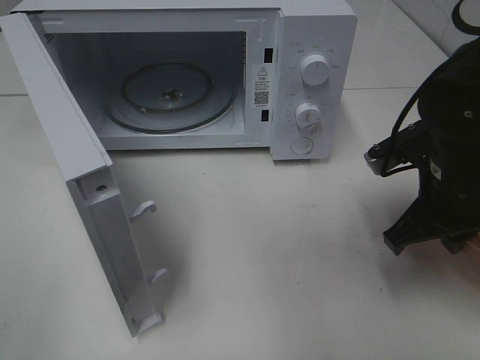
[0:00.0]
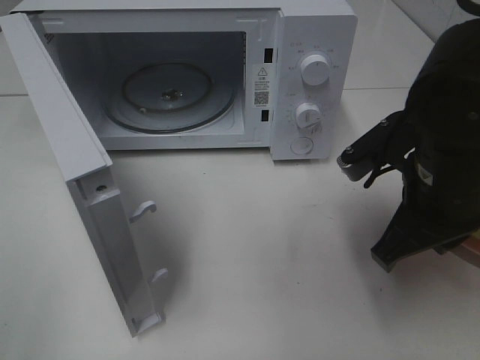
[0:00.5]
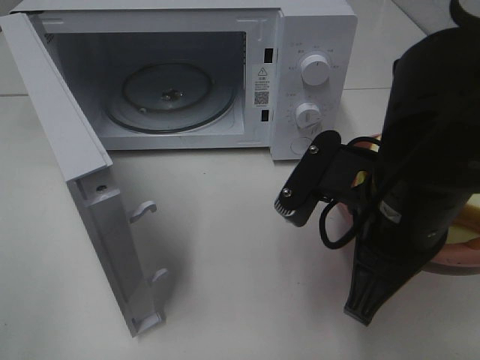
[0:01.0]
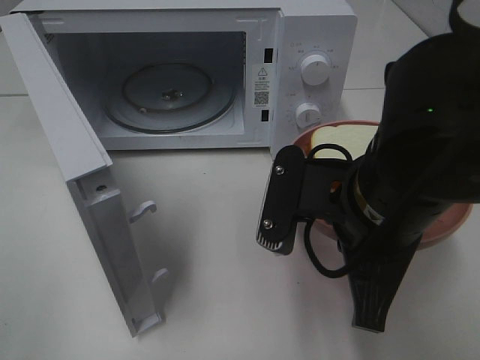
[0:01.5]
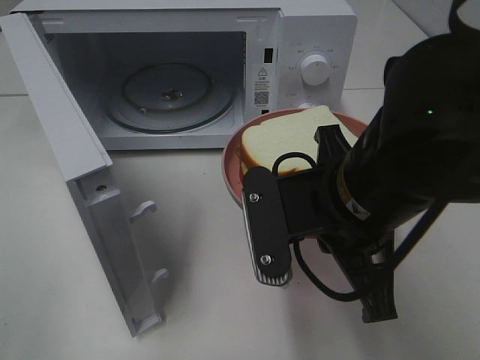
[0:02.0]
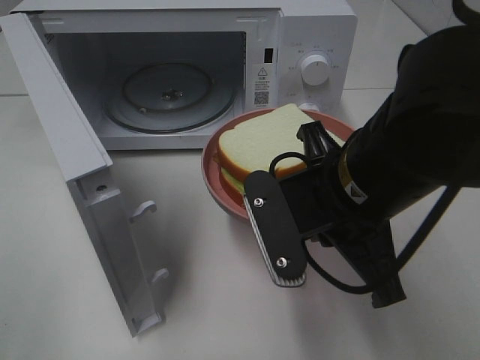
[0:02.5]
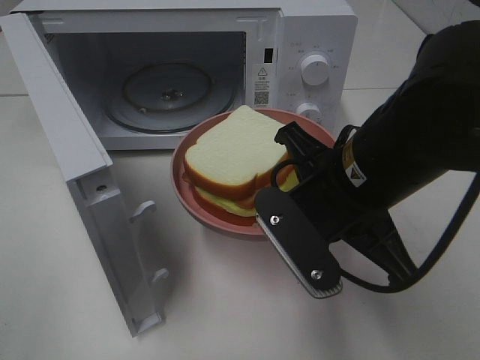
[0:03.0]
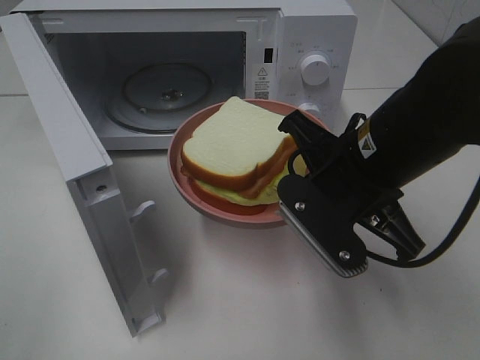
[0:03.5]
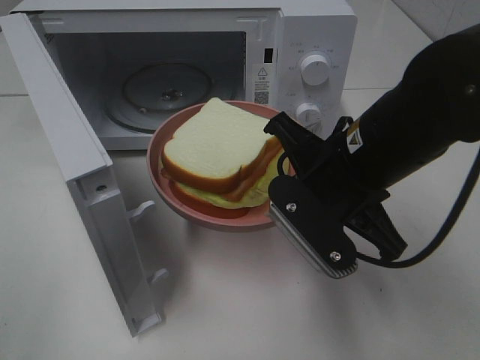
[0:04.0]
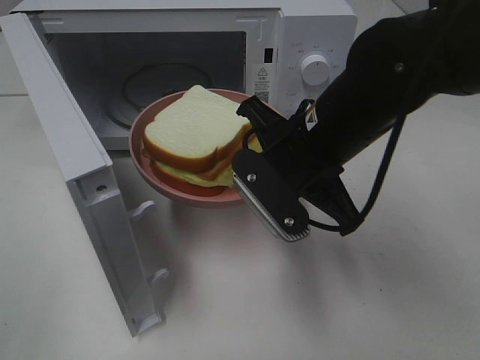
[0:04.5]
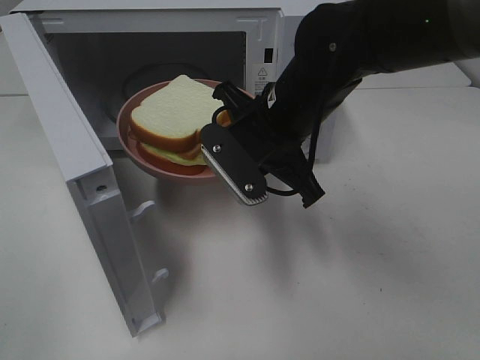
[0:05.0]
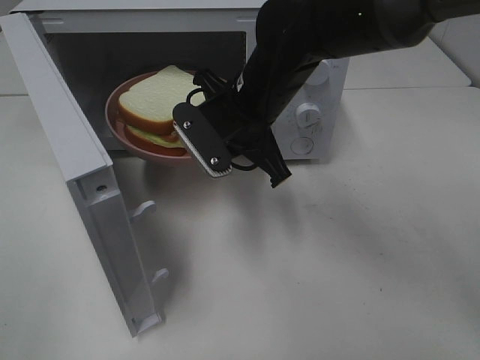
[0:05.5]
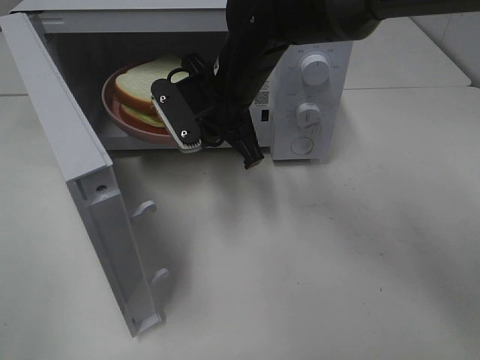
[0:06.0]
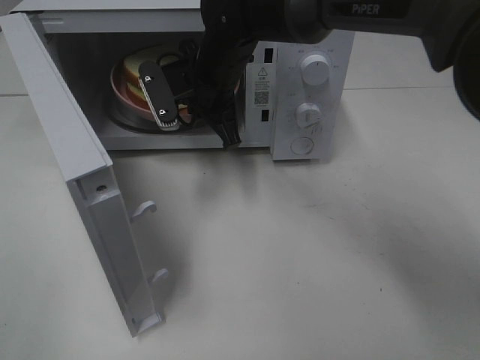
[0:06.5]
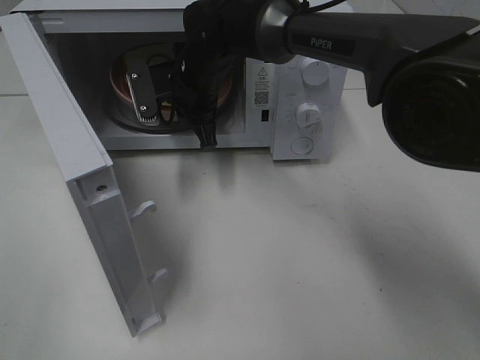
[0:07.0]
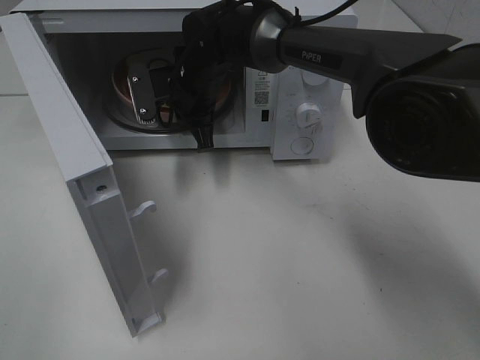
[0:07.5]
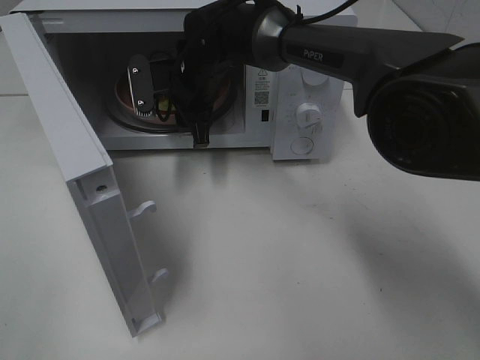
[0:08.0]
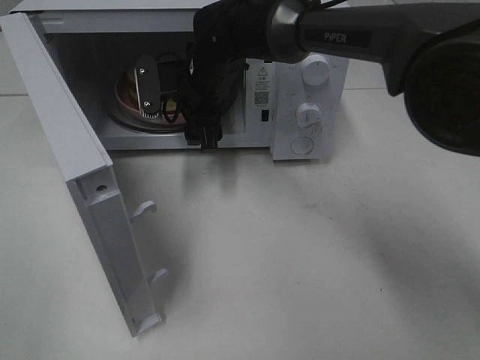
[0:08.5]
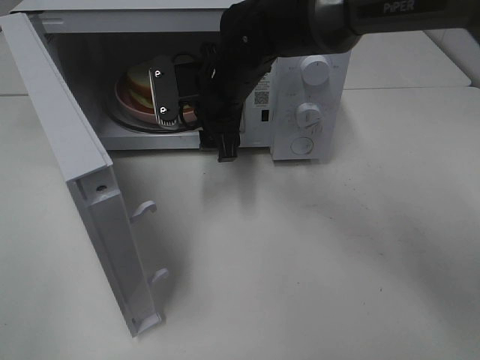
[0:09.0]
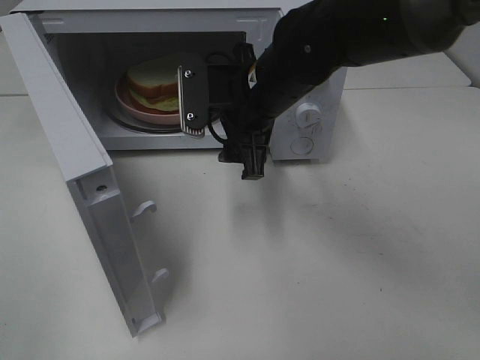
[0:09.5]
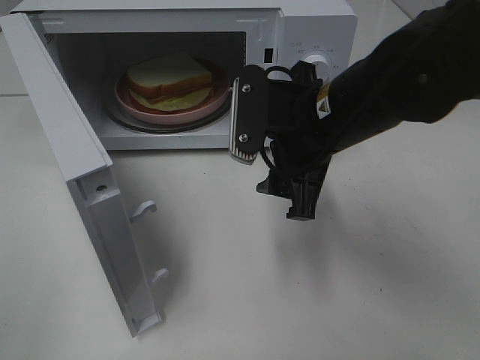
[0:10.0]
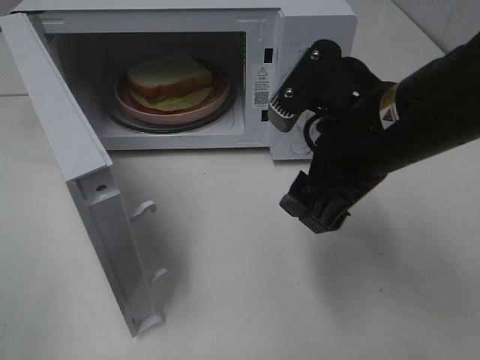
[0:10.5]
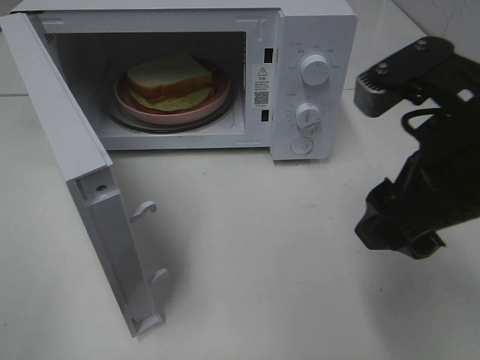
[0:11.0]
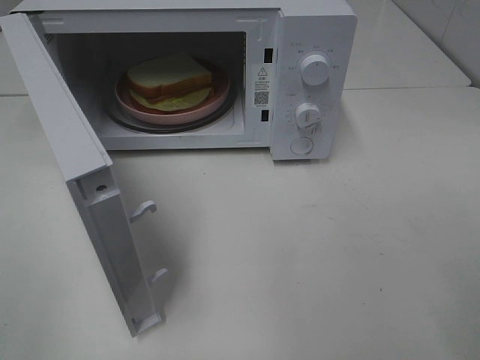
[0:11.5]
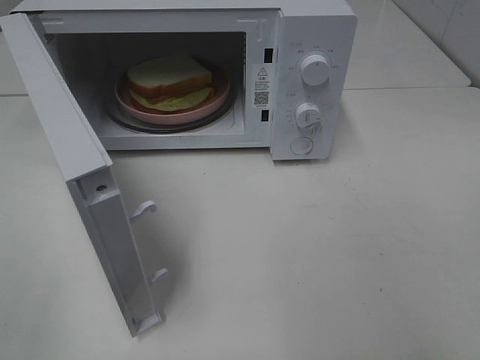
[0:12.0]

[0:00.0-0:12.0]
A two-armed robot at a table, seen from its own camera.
Task of the whole recording: Heat Sandwich.
Step, 0.0 to 8.5 s: Right hand: place the plate in the microwave.
0.0 to 2.0 s: The right gripper is displaced to the left and backward by approximately 15 cm.
2.0 to 4.0 s: The right gripper shifts roughly 5 cm forward.
4.0 to 6.0 s: The right gripper is displaced forward and to the left by some 20 cm.
6.0 to 8.0 s: The right gripper heads forward, covering approximately 10 cm, and opens up.
8.0 to 10.0 s: The right gripper goes roughly 25 cm backward and to the right.
10.0 to 12.0 s: The right gripper goes some 30 cm backward, to the right and upward.

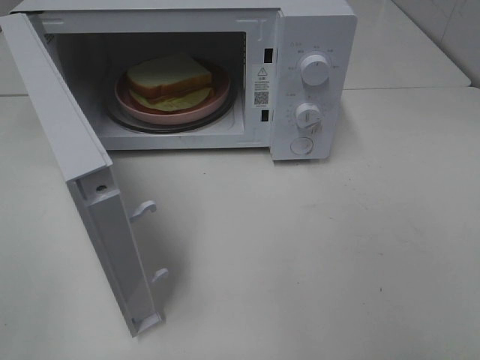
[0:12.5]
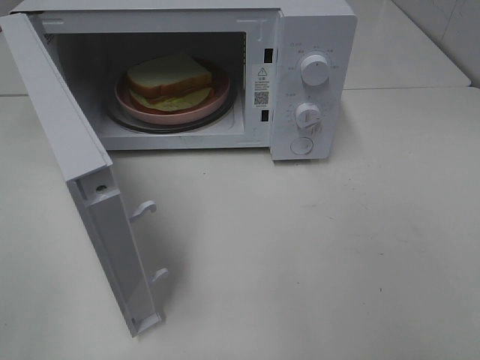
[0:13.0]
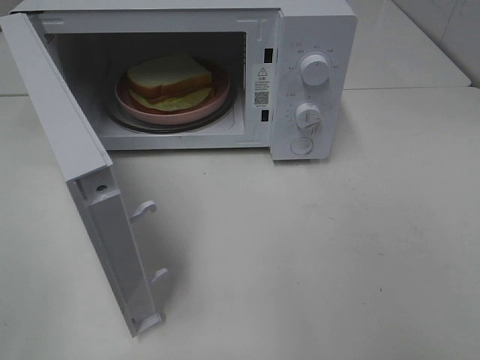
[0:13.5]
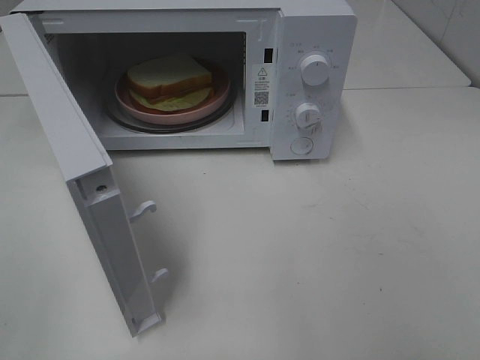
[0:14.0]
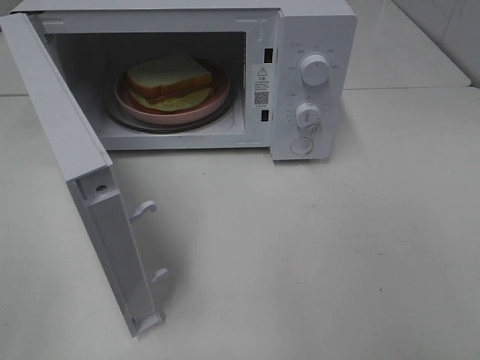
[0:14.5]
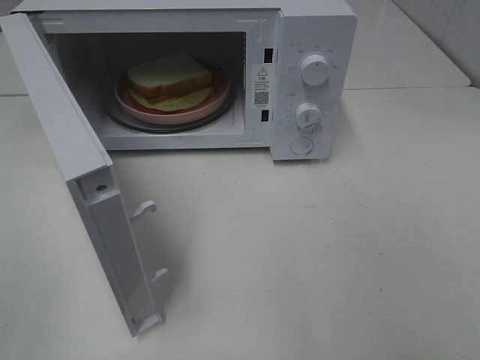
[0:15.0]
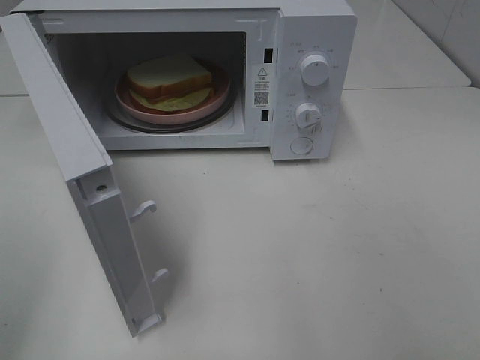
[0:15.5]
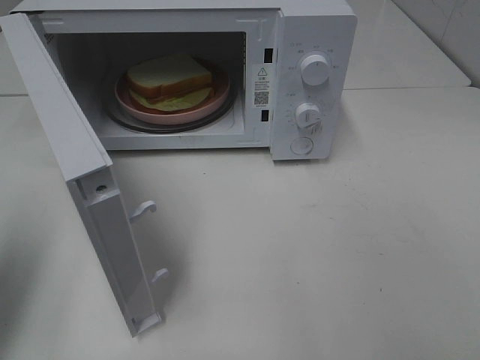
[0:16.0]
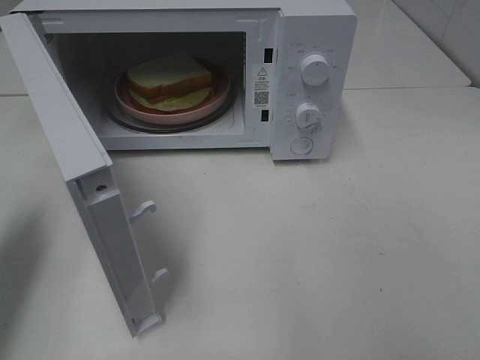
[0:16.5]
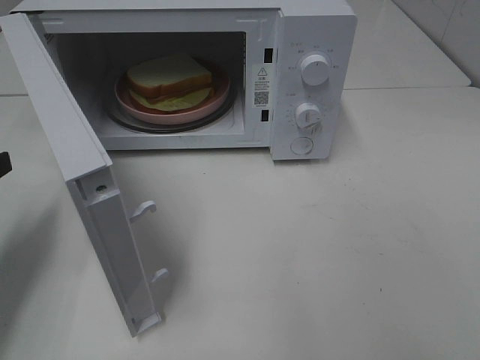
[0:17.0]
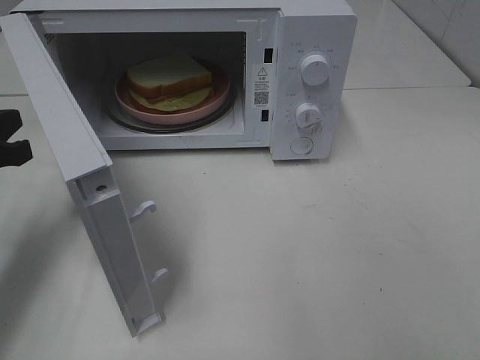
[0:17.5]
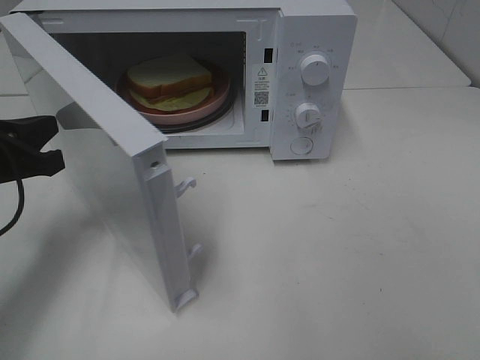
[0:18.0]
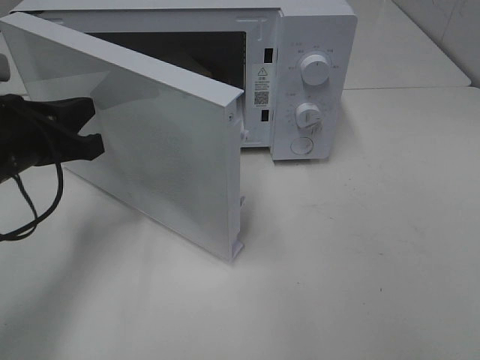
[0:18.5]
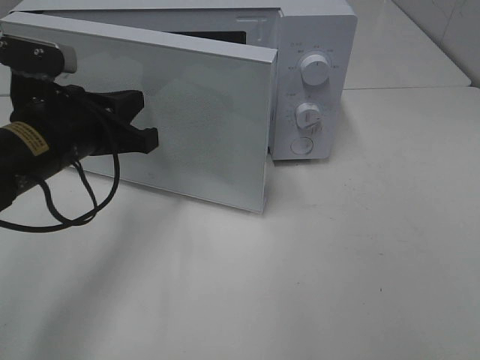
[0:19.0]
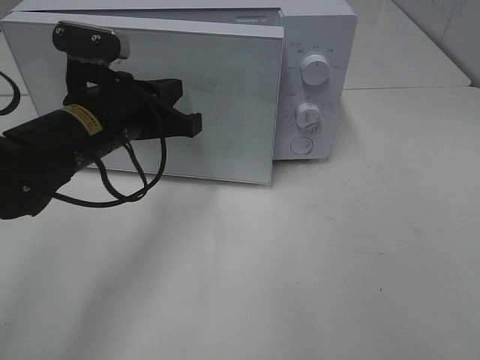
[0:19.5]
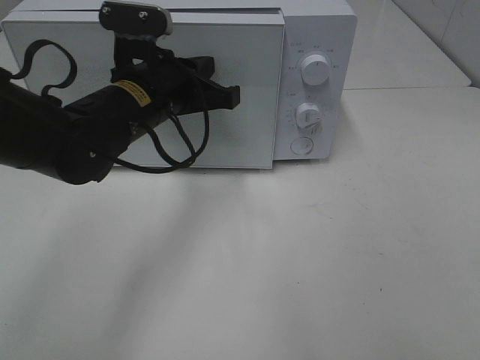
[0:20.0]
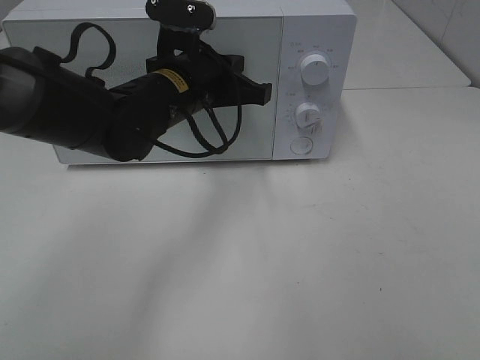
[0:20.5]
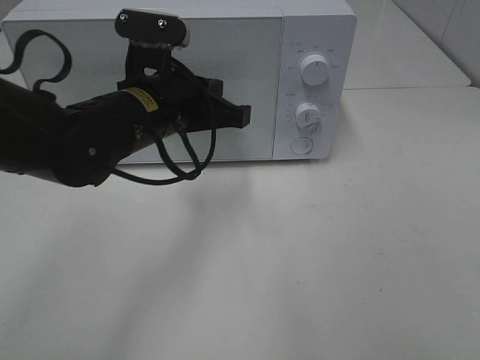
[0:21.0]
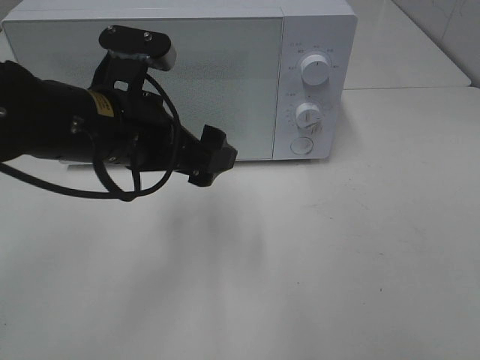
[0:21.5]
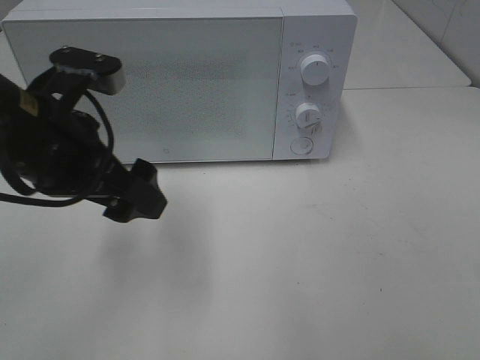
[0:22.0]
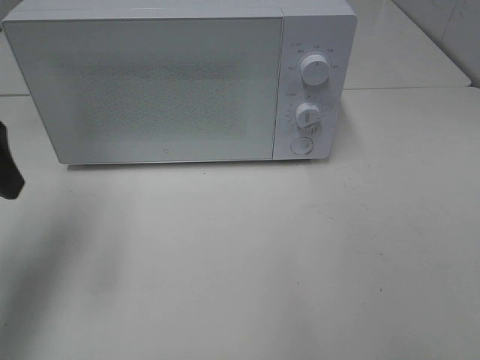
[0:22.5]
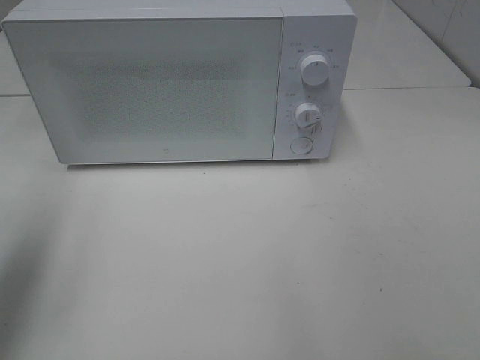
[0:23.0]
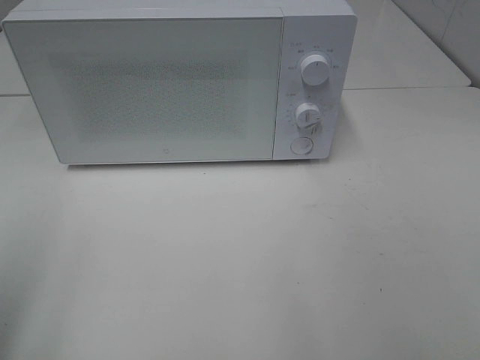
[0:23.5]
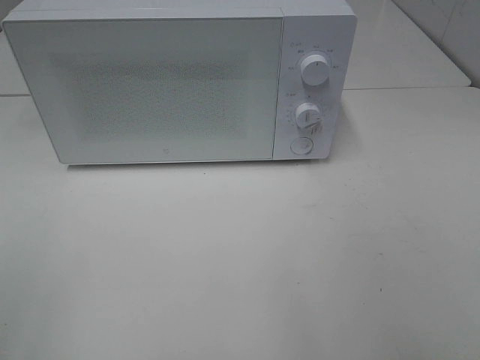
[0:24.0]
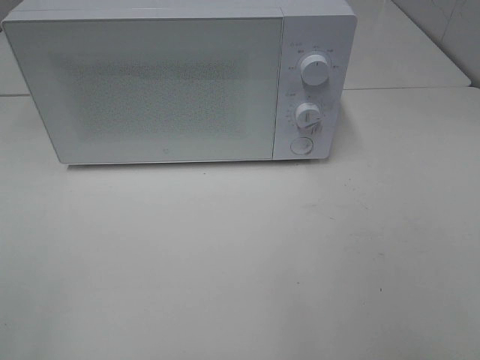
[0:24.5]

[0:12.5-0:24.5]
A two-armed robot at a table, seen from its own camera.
Task of the whole recording: Heat Sandwich.
Step, 12.5 to 21.0 s: Left hand: close the microwave door.
14.5 to 16.5 s: The left gripper travels forward by roughly 25 cm, and closes.
16.5 to 18.5 s: The left gripper shifts approximately 10 cm to the right.
18.5 to 20.5 s: The left gripper is displaced to the right and forward by approximately 20 cm.
20.5 to 22.5 s: The left gripper moves to the left and backward, roughly 25 cm, and opens up.
22.5 to 24.5 s: The left gripper moves backward, approximately 25 cm.

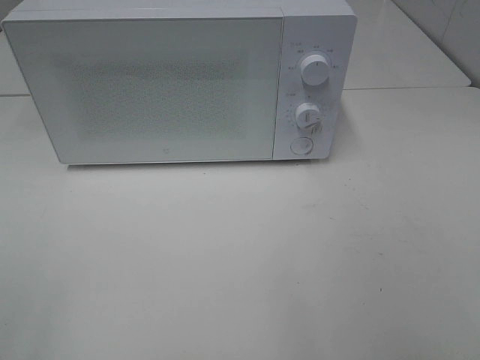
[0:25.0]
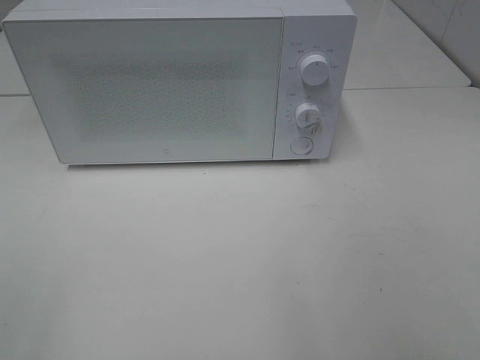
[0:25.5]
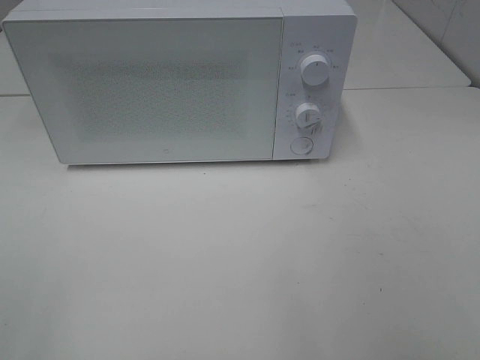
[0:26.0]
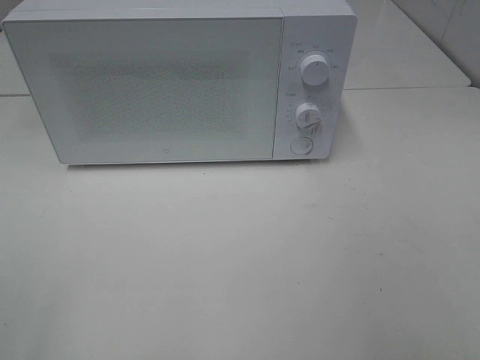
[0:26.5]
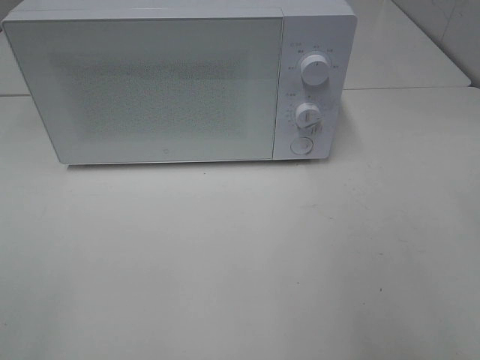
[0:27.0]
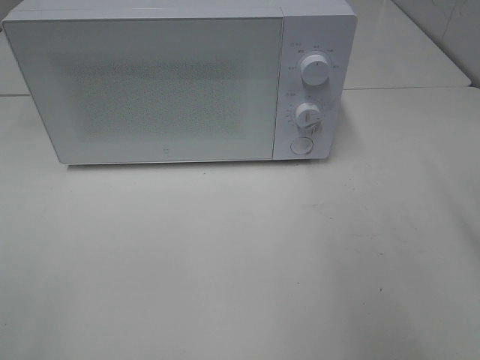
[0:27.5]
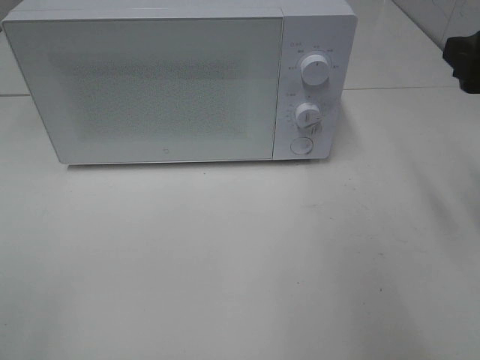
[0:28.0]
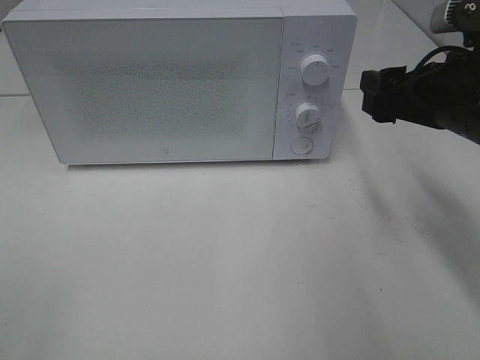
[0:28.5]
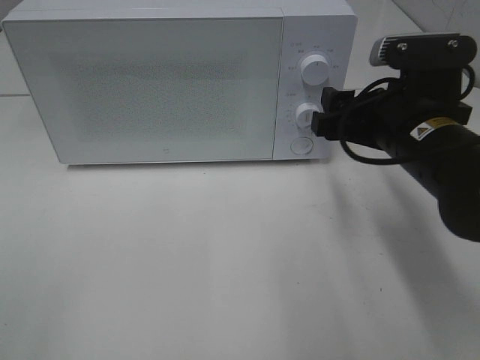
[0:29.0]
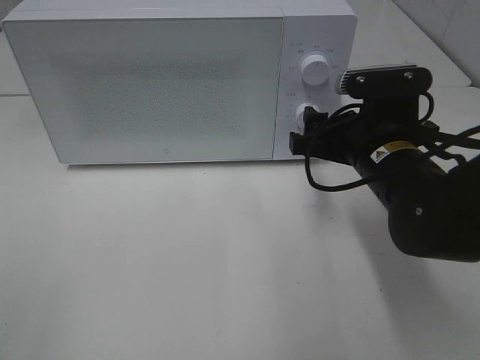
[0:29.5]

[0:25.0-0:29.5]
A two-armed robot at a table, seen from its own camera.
Task of the whole recording: Heat Sandwich.
27.0 to 29.5 s: The right gripper goes approximately 25 cm forward, downward and to the left.
